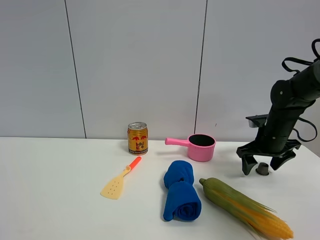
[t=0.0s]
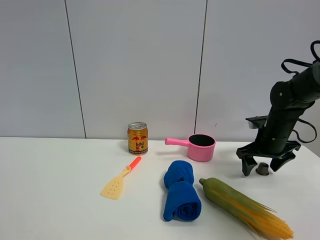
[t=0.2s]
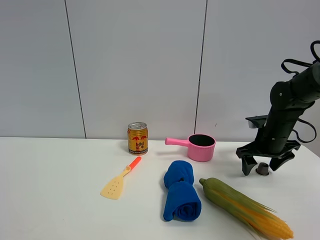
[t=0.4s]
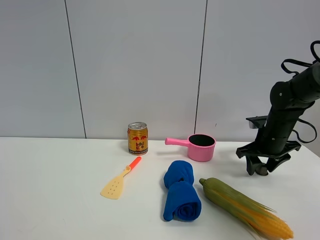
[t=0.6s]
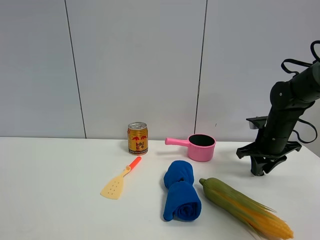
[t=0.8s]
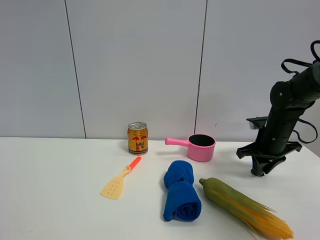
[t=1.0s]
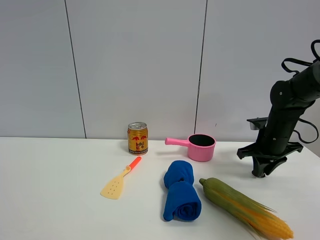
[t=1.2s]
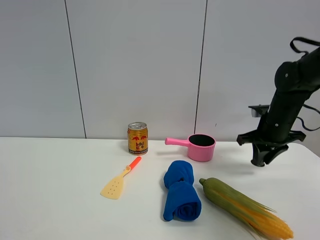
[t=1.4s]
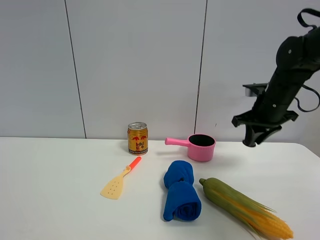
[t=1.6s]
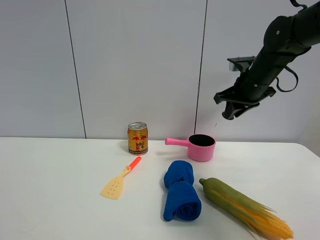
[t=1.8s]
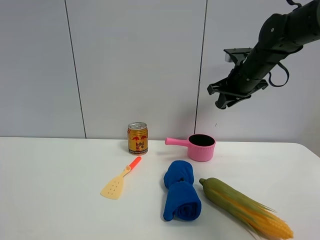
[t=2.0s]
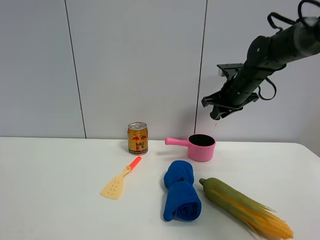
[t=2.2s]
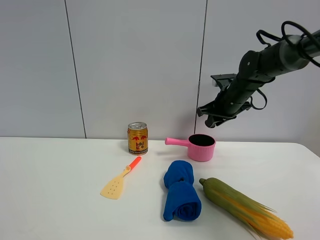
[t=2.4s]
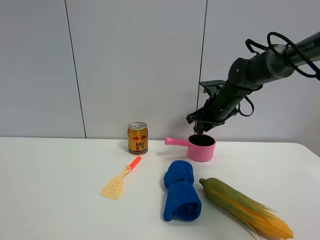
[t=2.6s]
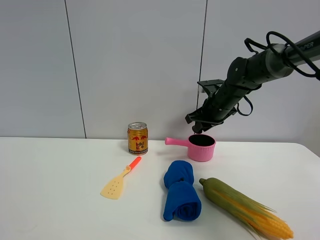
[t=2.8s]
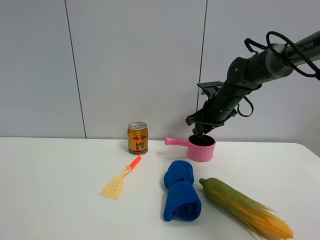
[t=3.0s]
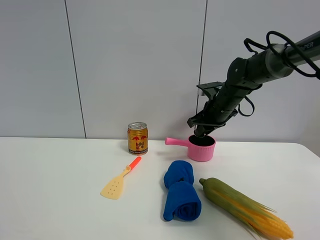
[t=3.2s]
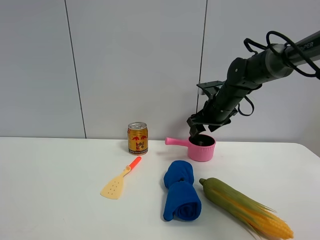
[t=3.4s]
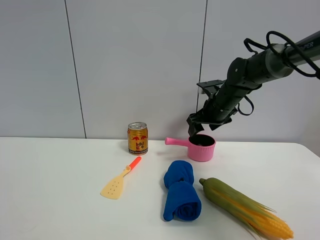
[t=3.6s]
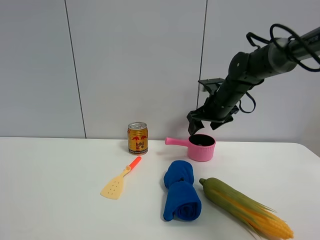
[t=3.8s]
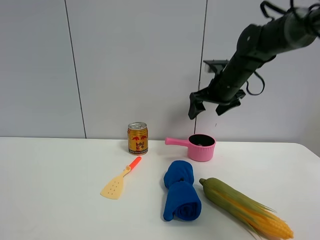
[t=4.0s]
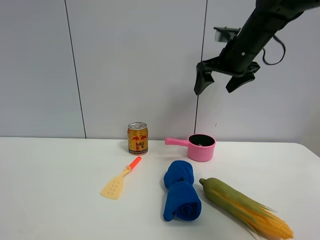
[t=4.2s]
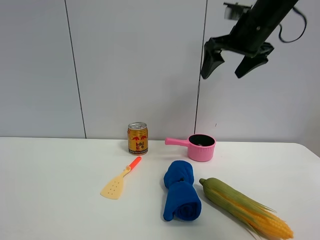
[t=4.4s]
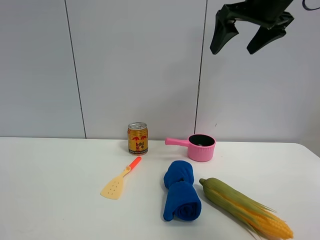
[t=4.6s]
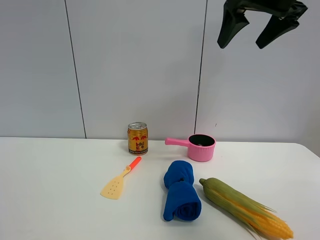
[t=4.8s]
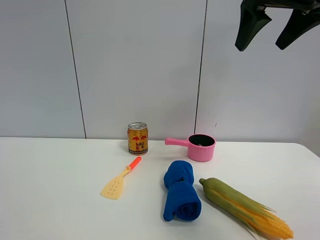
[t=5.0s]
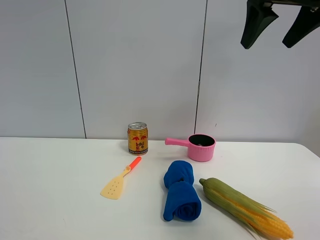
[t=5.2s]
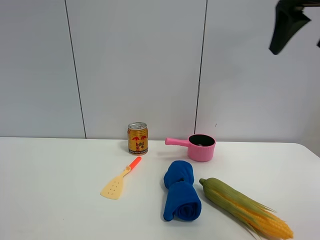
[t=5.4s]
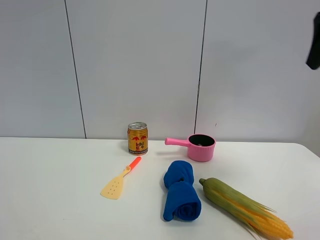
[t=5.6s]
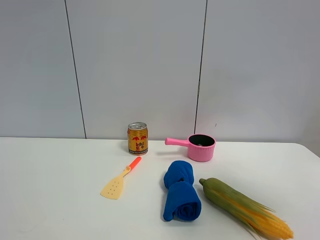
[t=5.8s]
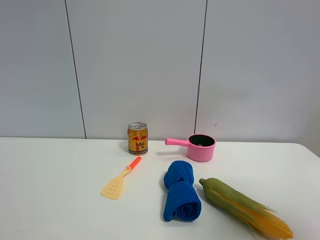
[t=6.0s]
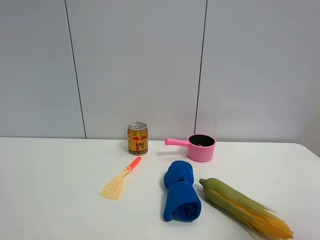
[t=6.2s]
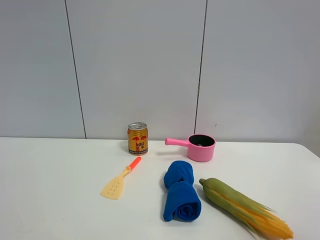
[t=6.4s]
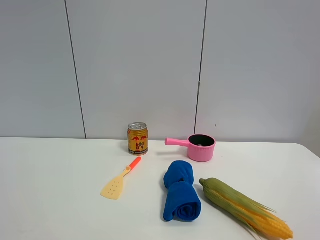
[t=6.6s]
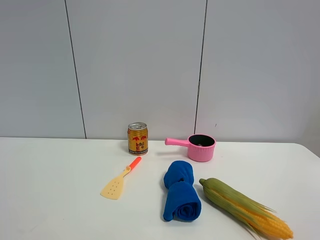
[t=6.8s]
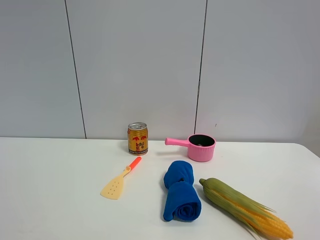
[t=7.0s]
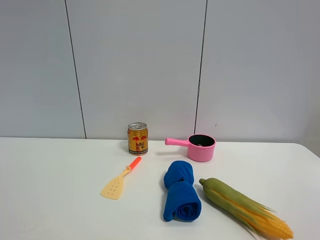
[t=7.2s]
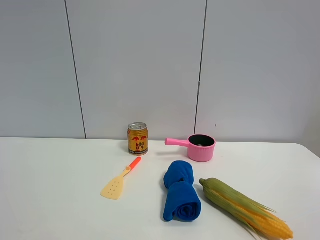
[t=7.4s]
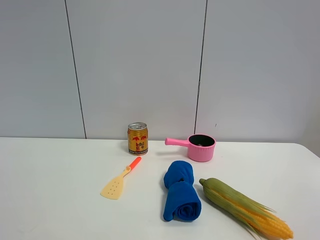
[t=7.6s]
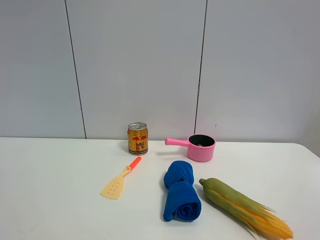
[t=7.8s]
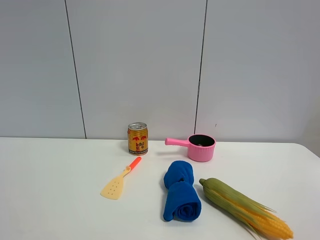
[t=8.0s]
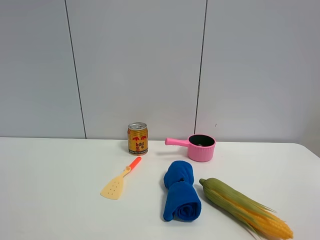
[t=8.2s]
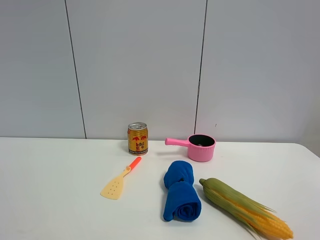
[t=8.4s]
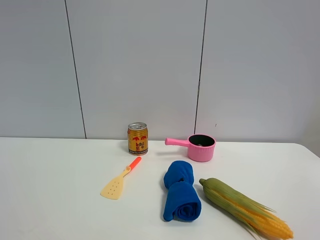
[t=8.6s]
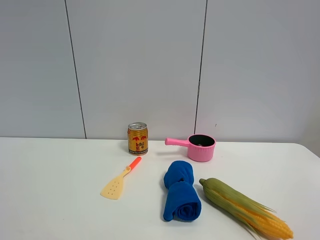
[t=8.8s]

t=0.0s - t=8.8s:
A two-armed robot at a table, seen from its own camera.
Task of the whole recording: the gripper move the object.
Step, t=1.0s - t=3.8s: Place the coffee capsule into the pink plate with the right gripper.
t=0.0s - t=1.4s: The right gripper heads upward, covering roughly 5 cm, and closes its fingers.
t=1.4s - t=3.0s: The right gripper shifts some 10 cm to the left and forward.
t=3.0s - t=4.4s: The right gripper moves upward and backward, approximately 20 cm, and opens.
t=4.4s - t=5.8s: The right gripper travels backward and to the right by some 25 cm.
t=5.8s - t=7.4s: The right gripper travels backward and downward by some 20 cm.
t=7.4s - t=8.8s: The two grippers keep their place.
